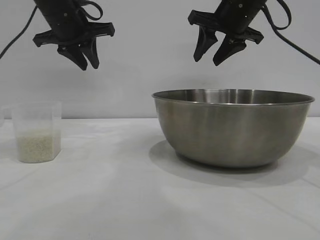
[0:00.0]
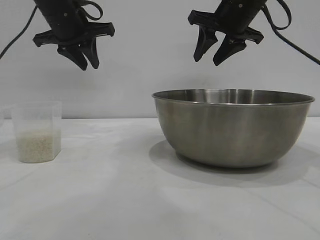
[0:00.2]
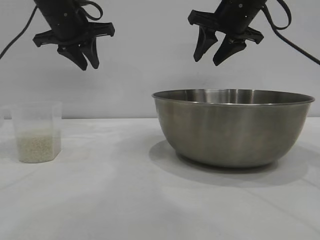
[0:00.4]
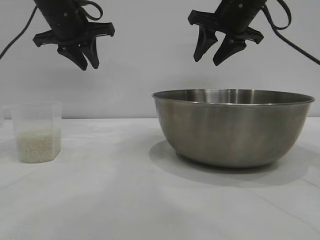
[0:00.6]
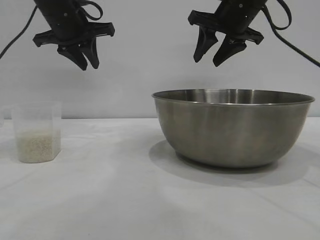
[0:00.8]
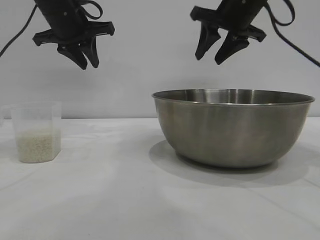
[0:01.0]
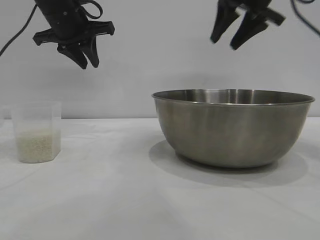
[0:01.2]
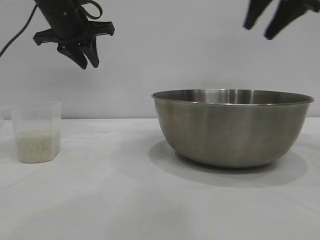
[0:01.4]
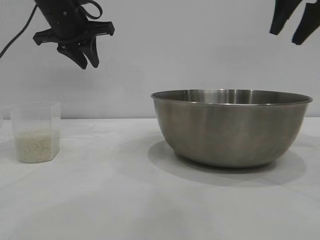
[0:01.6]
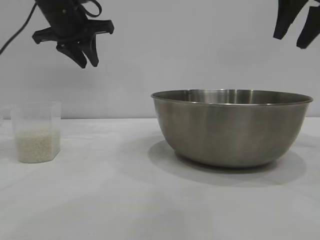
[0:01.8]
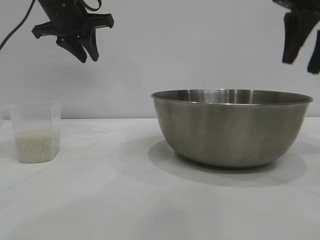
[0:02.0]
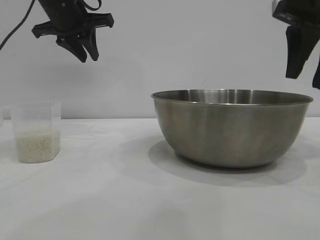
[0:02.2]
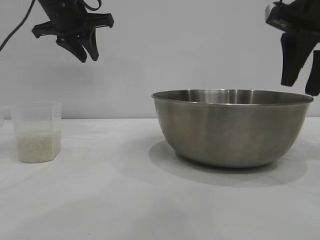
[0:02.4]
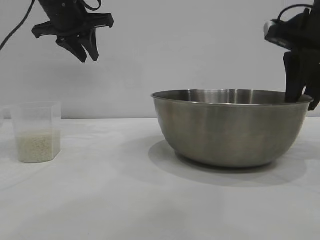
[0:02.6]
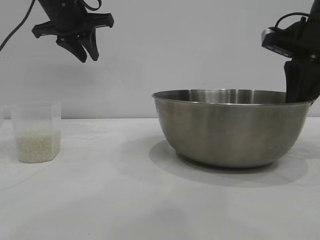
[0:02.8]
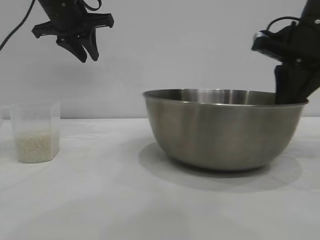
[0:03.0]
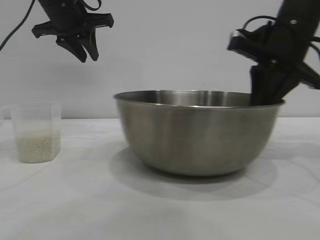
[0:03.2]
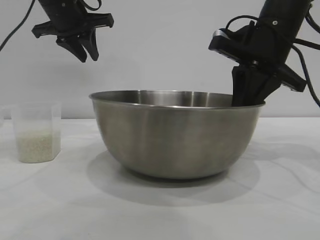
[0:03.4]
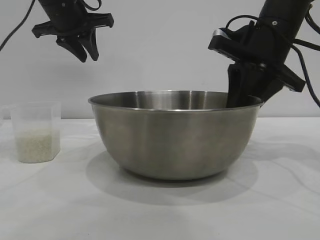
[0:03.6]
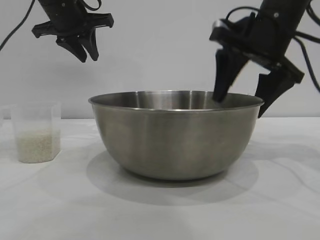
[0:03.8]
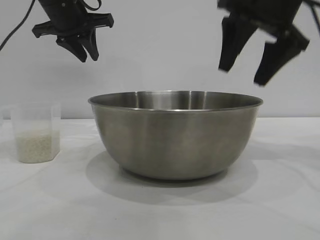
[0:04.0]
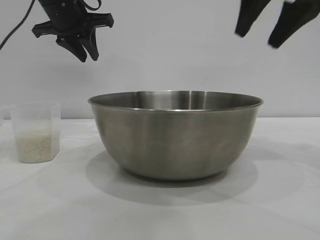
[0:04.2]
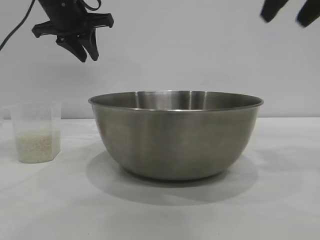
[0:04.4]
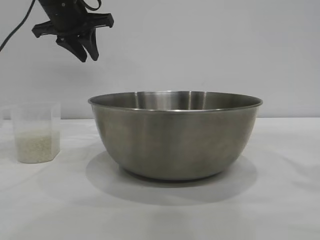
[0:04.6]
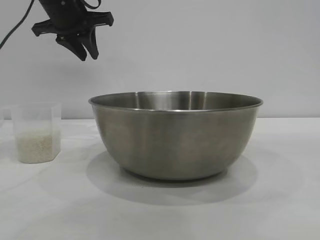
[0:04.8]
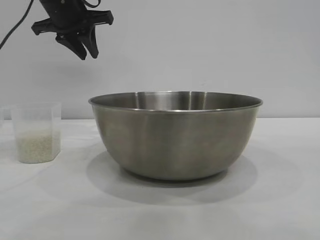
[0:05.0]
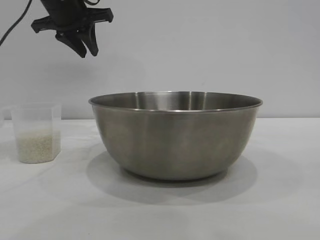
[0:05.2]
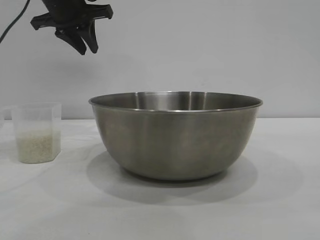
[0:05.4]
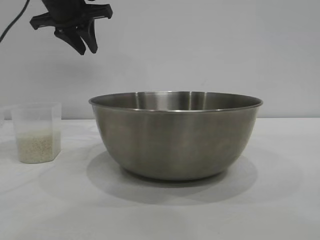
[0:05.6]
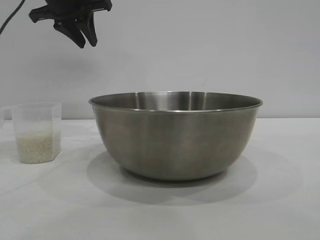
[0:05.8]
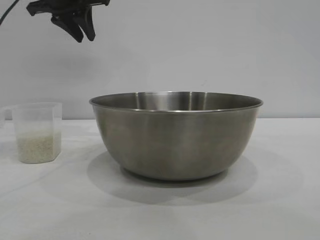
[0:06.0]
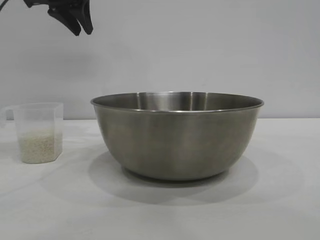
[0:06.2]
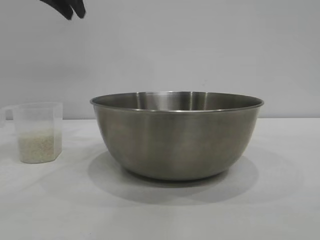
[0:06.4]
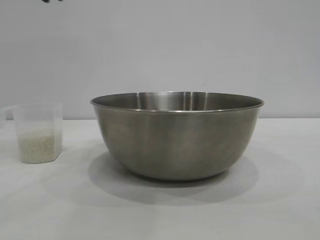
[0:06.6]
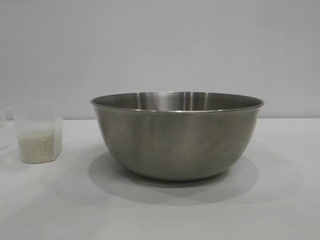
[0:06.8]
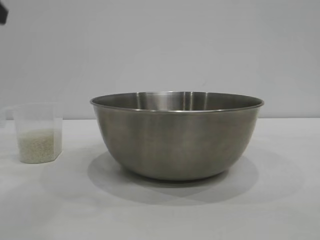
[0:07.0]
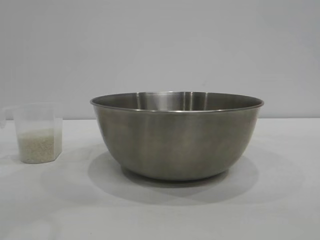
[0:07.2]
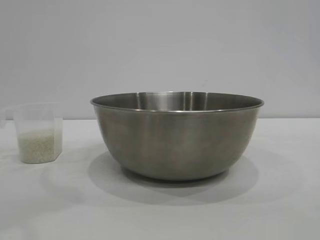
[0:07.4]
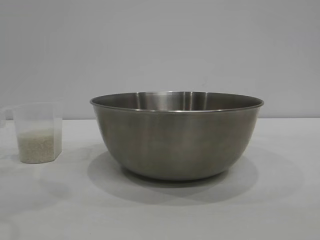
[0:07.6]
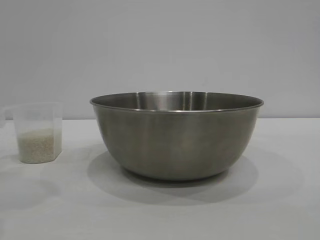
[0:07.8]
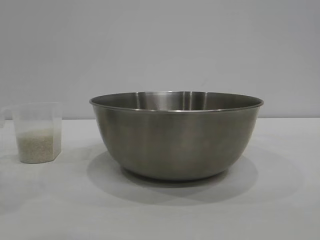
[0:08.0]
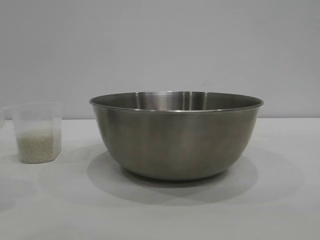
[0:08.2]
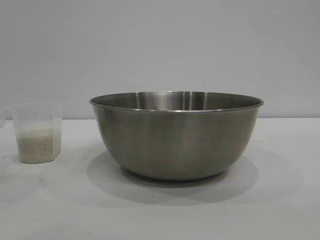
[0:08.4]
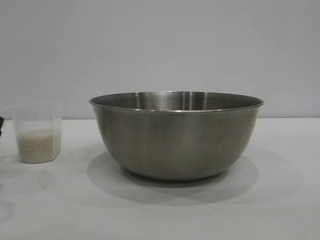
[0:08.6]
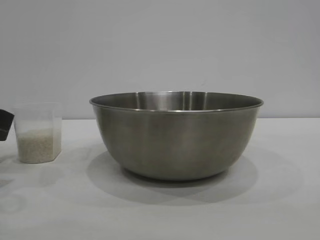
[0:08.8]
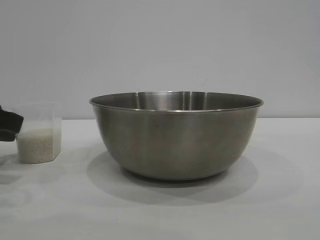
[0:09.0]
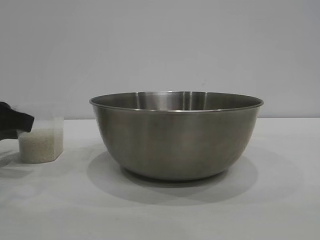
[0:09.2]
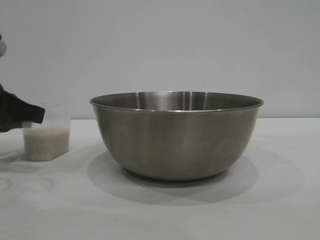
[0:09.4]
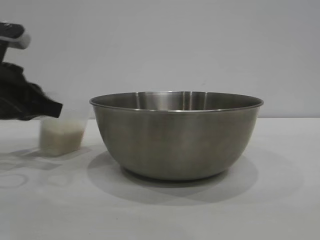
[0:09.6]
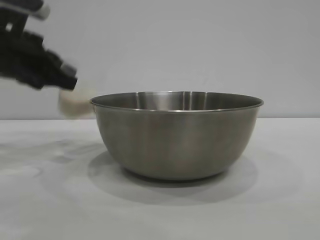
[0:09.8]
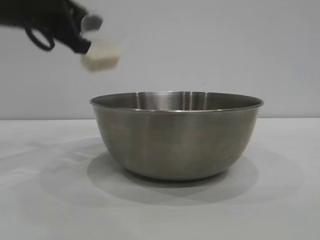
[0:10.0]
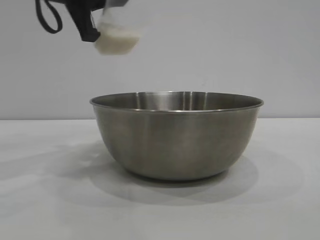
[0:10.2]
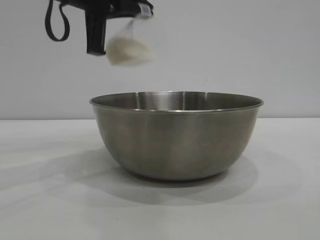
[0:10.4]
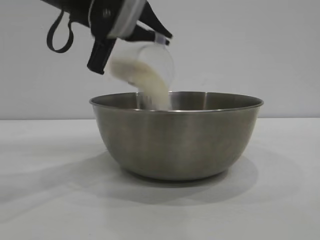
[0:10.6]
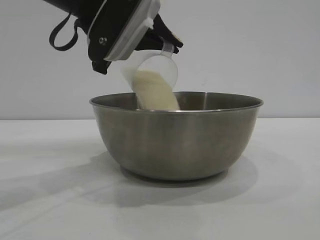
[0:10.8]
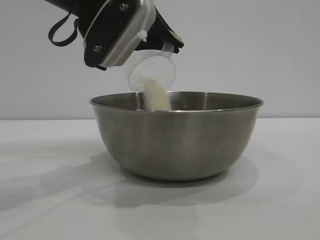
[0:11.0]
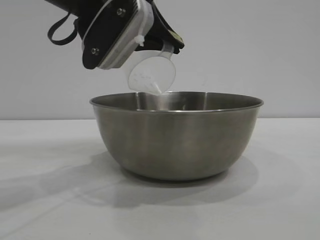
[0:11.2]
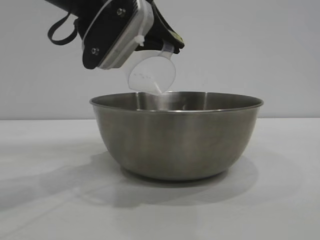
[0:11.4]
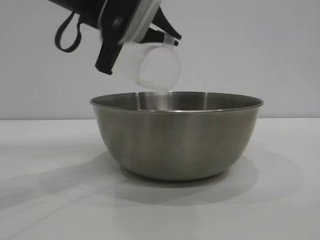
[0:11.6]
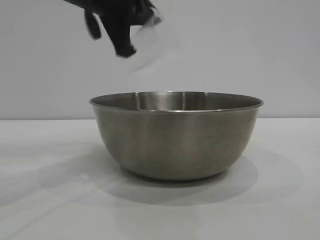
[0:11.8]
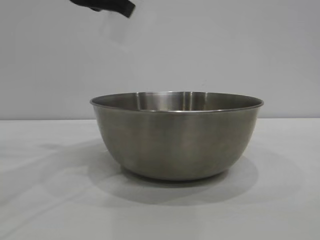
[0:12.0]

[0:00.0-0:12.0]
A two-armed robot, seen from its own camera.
Task of the whole recording: the right gripper grasp the rice container and place it in the center of the table, the left gripper grasp the rice scoop and pour the rice into the rice container.
Step, 0:00.0 to 0:03.8: Move the bowl to the center of view with the right gripper.
Step, 0:04.0 to 0:09.6: Pick up the cup with rice in it with the left gripper.
Step, 0:09.8 to 0:11.2: Pour the rice from the cup into the bowl with the left gripper.

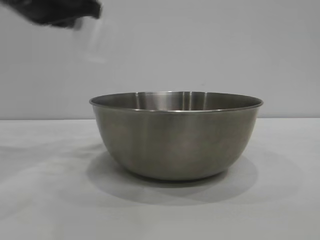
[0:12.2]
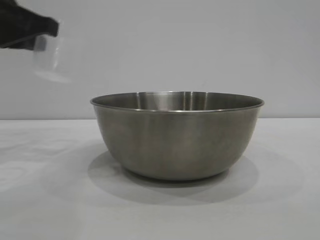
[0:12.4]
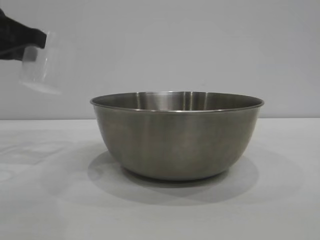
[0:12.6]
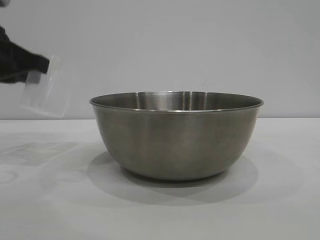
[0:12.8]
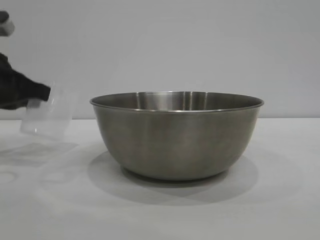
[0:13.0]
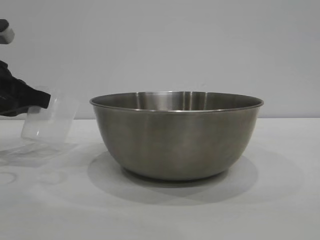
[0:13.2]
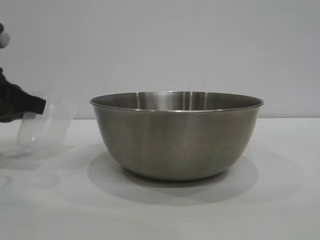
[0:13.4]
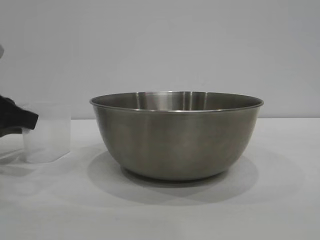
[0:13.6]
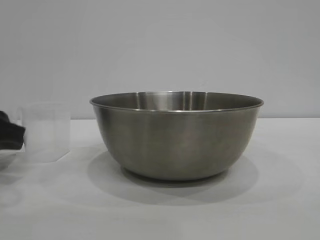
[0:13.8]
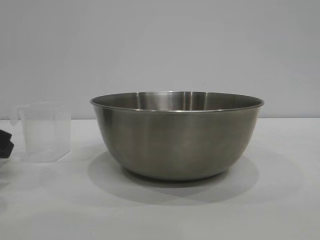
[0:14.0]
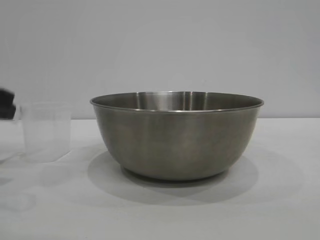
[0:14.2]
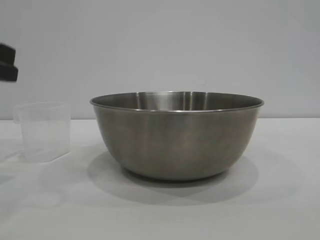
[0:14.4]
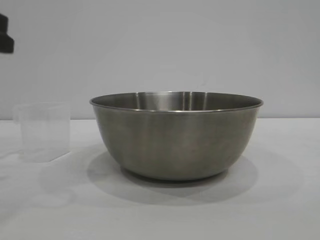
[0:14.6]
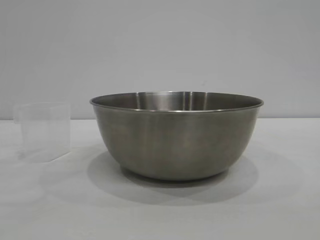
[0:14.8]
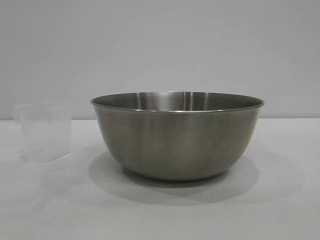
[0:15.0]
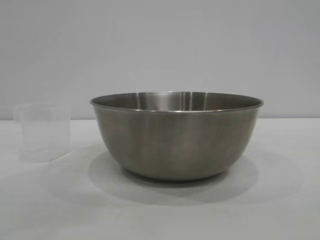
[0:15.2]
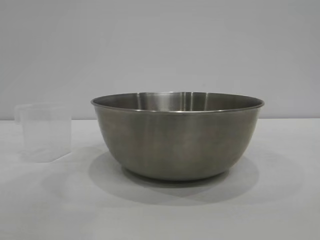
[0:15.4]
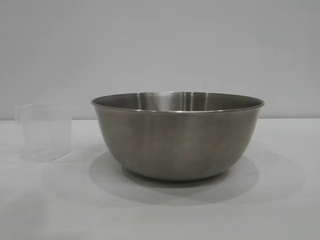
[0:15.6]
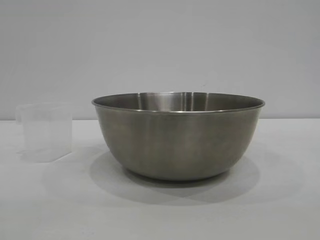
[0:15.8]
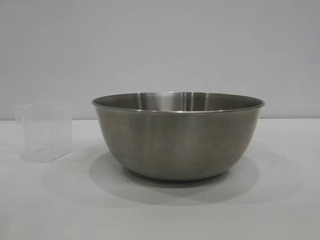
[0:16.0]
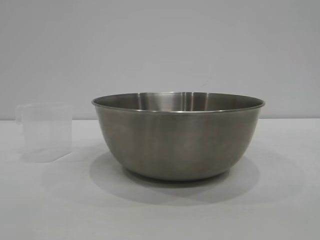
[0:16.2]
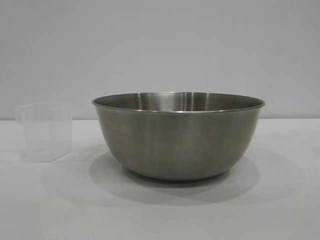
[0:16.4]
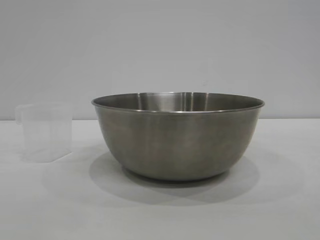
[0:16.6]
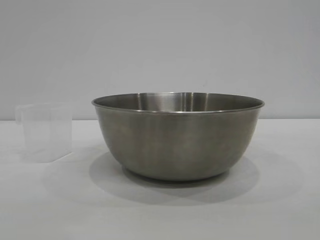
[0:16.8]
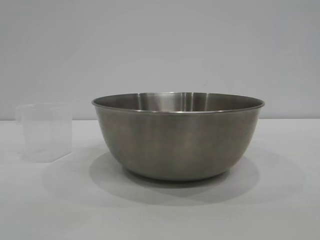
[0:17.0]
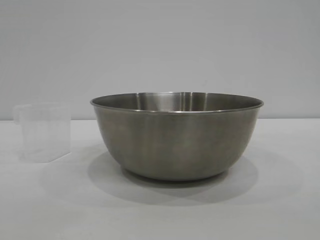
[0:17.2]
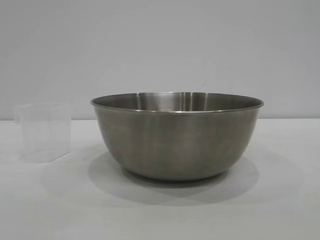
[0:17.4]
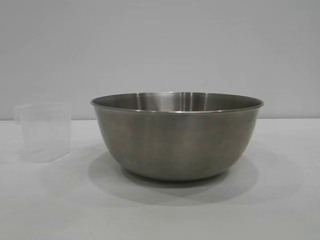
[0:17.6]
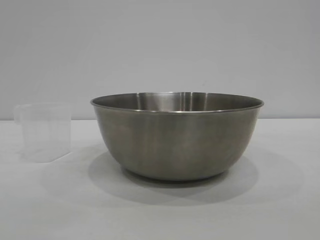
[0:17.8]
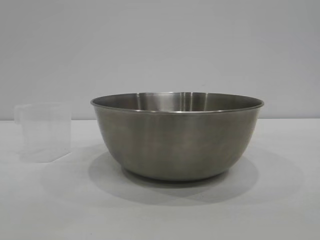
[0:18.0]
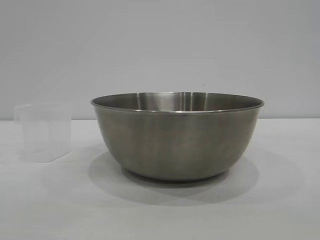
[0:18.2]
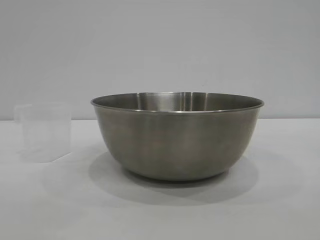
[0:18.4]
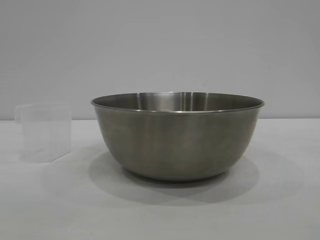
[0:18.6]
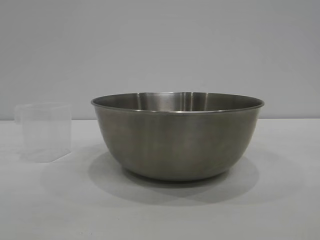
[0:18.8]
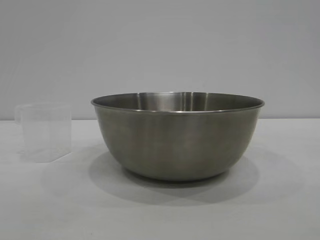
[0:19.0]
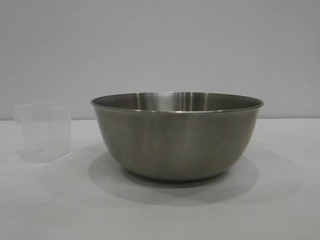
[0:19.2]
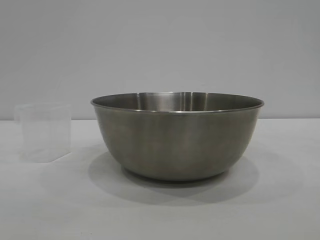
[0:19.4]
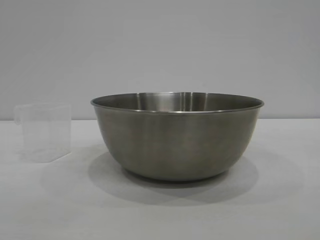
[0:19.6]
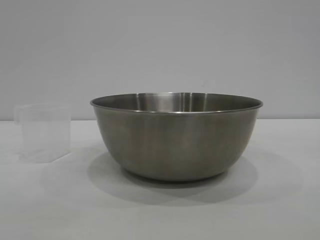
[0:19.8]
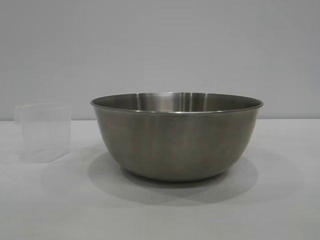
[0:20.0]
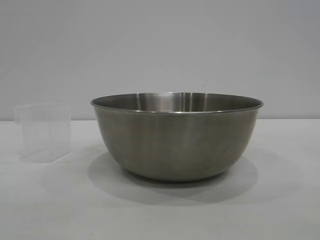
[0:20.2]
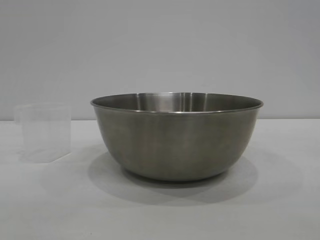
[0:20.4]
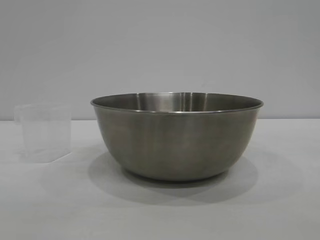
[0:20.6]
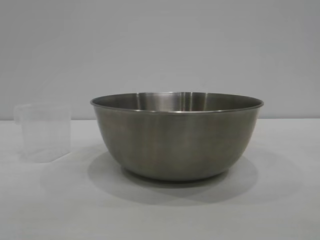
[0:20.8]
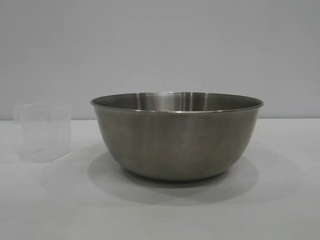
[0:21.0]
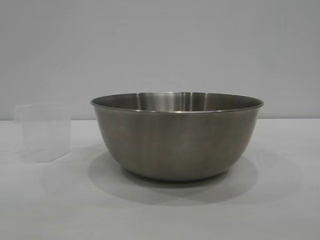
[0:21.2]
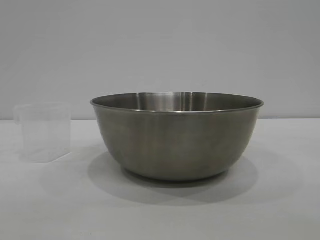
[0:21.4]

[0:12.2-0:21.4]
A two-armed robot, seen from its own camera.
Task of the whole recording: the right gripper grasp the rice container and place it in the center of the table, the left gripper grasp the rice scoop and pour the rice into the rice container.
Step, 0:12.2 to 0:14.0: Place the cup on the table with the left gripper.
